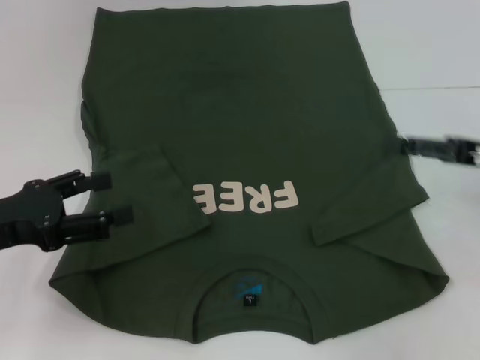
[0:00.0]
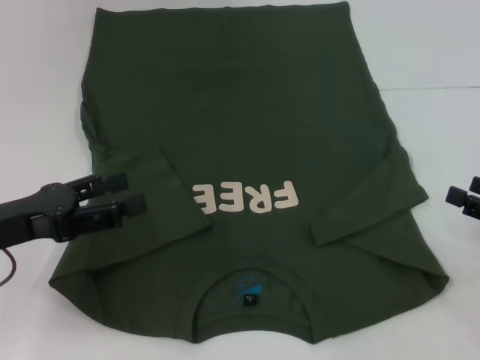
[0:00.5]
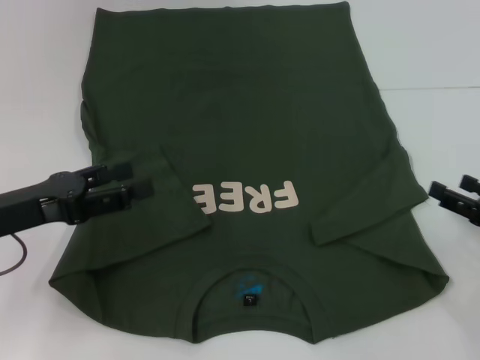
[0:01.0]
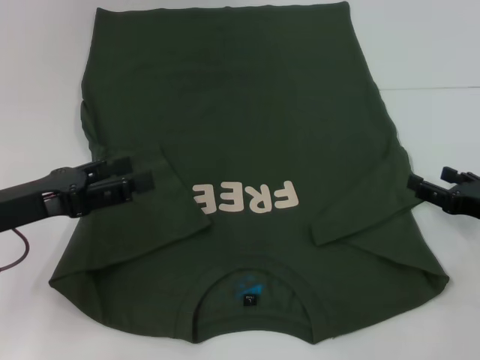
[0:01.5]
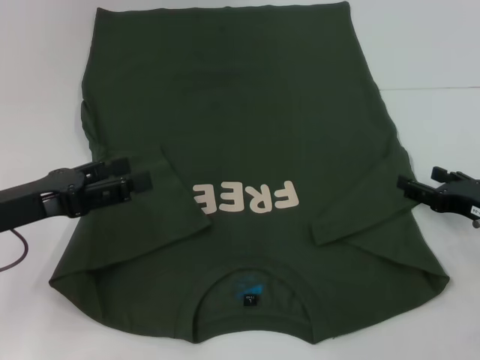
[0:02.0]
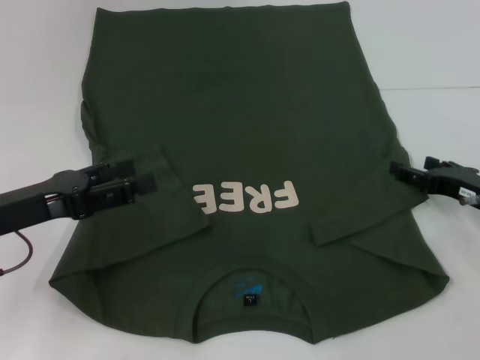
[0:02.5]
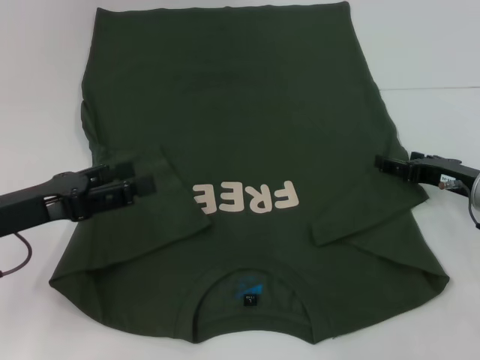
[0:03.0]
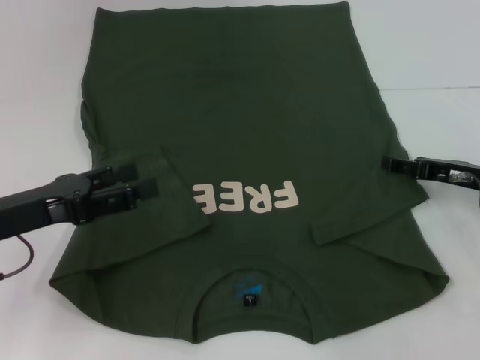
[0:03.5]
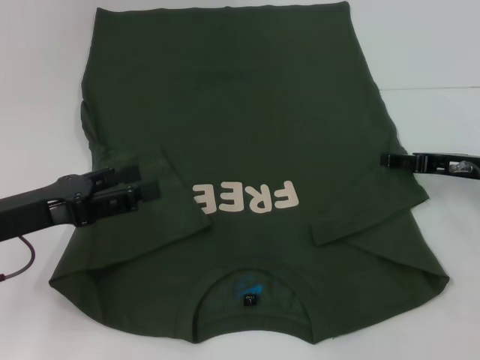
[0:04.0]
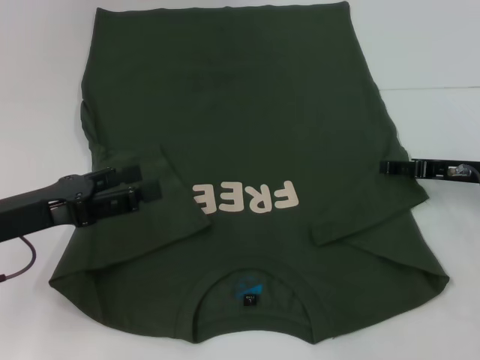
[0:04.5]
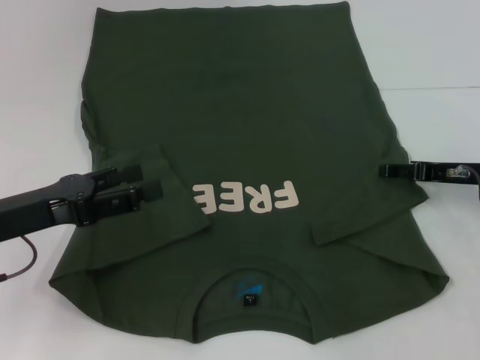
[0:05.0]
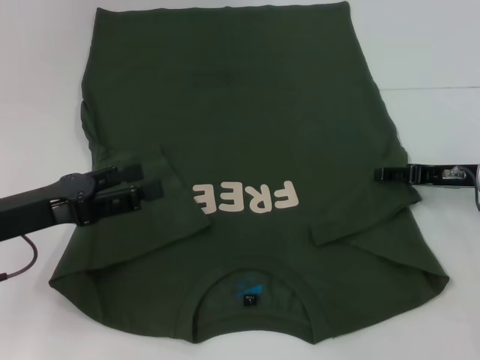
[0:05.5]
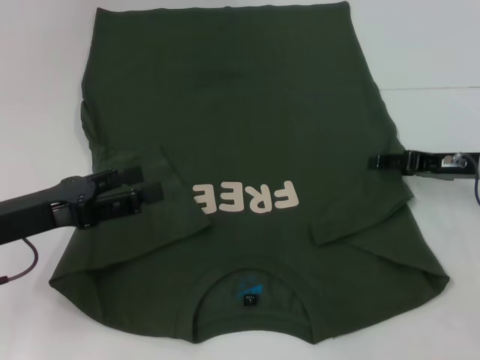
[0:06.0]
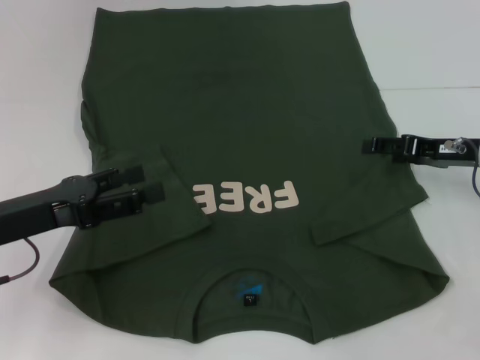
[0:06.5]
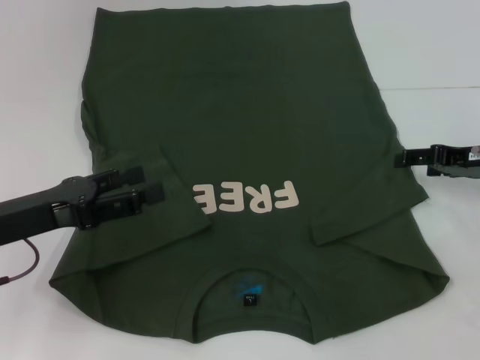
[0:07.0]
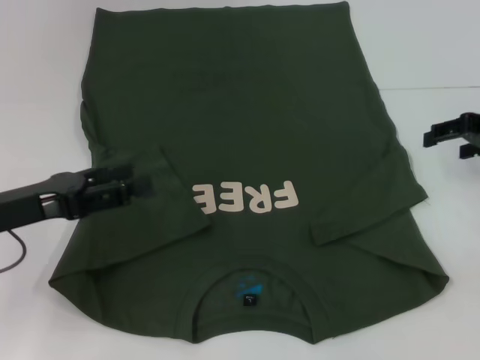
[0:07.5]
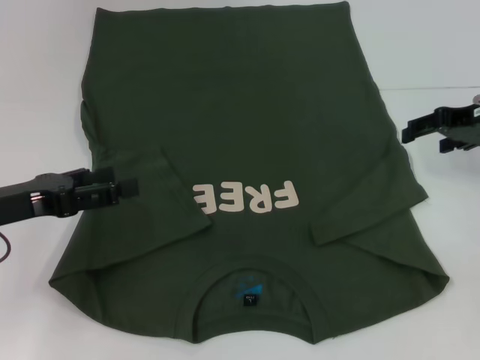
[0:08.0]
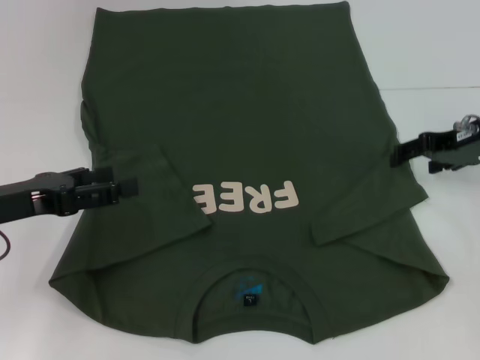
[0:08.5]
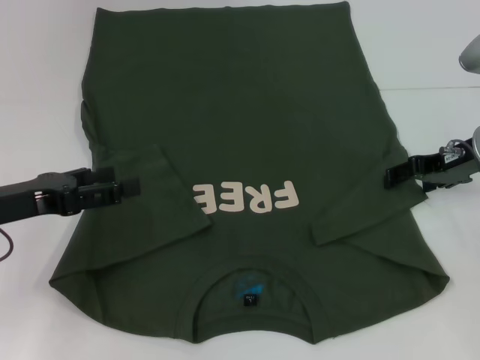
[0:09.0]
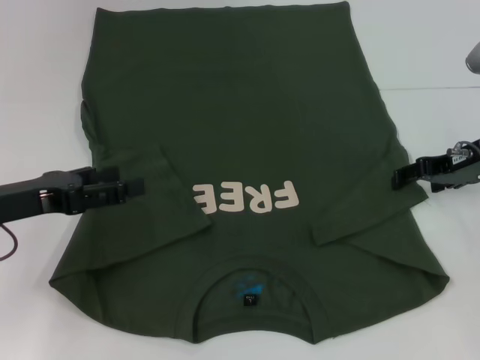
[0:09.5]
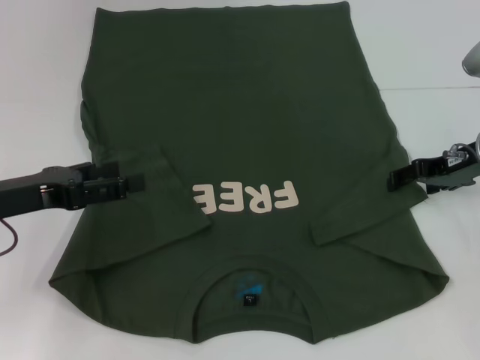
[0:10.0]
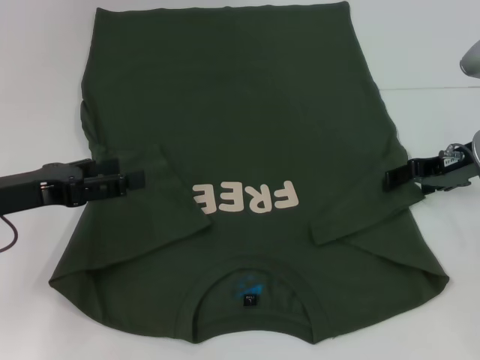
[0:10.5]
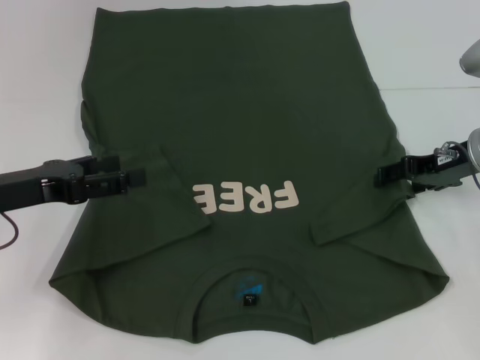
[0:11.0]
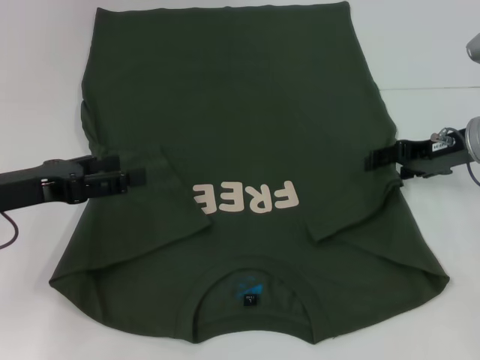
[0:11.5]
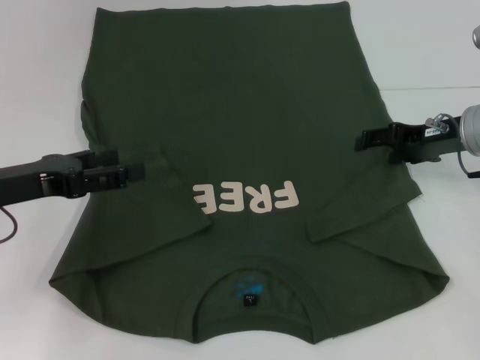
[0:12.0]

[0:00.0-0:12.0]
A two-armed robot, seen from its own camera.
0.0 to 2.0 s: The right gripper heads downward, covering roughly 10 cm.
2.0 to 4.0 s: The right gripper goes some 5 cm forward.
4.0 to 6.0 s: The grippers stay close to where they were, moving slightly.
6.0 to 8.0 s: The right gripper moves upward, approximately 10 cm.
8.0 to 10.0 s: The right gripper heads downward, covering roughly 5 cm.
10.0 to 12.0 s: The grippers make only small movements.

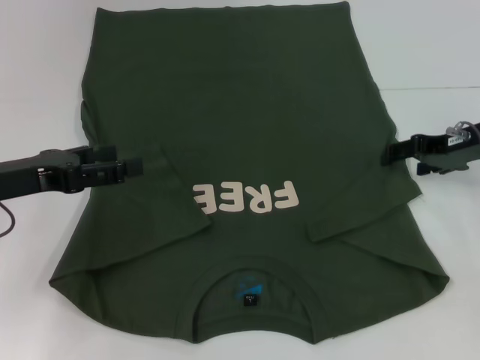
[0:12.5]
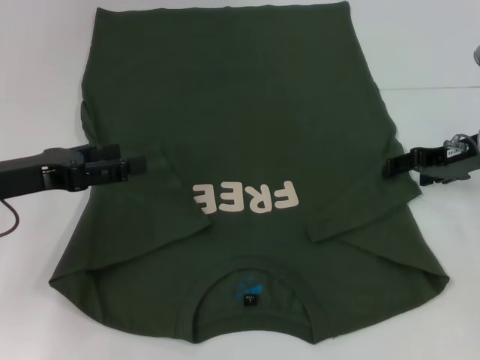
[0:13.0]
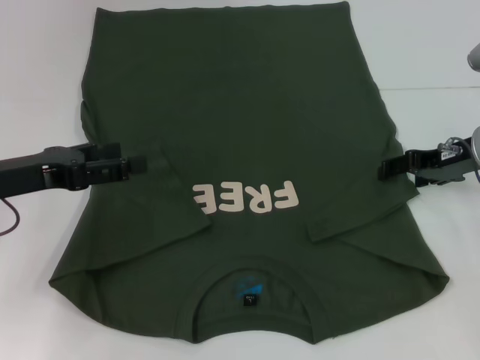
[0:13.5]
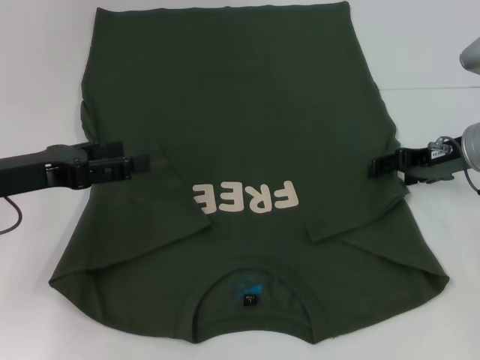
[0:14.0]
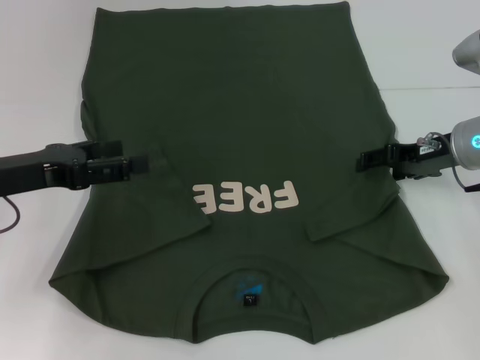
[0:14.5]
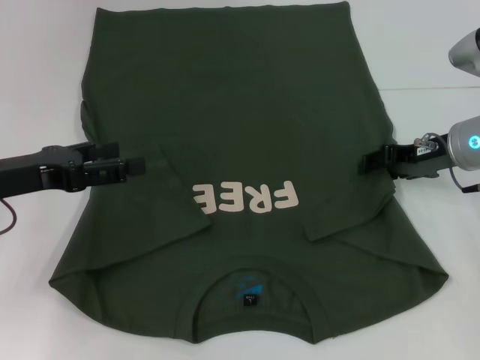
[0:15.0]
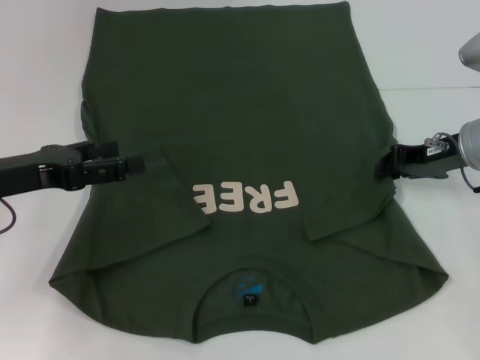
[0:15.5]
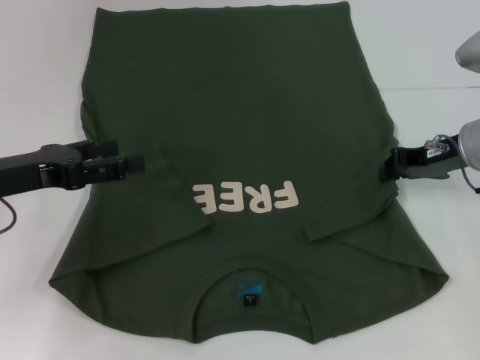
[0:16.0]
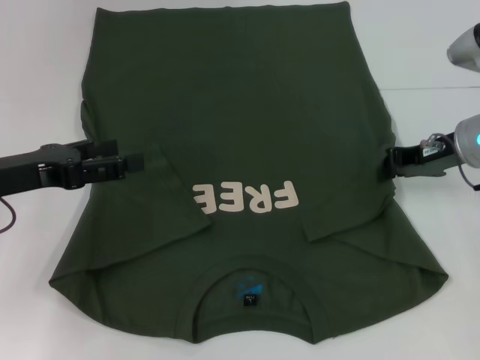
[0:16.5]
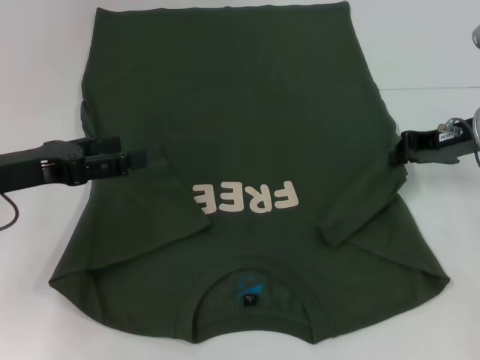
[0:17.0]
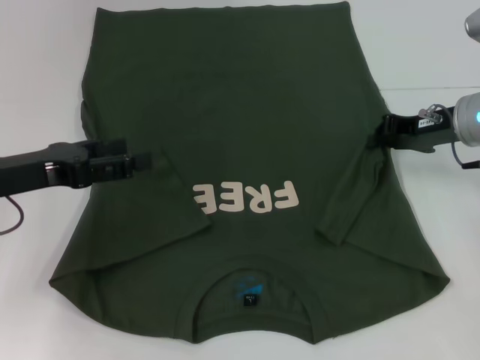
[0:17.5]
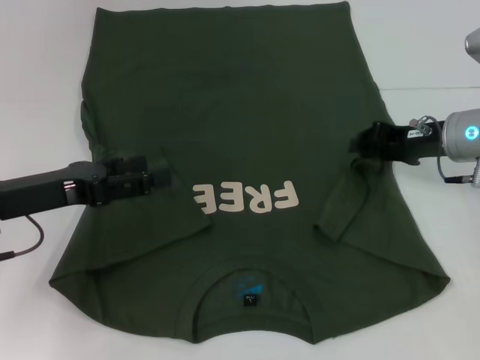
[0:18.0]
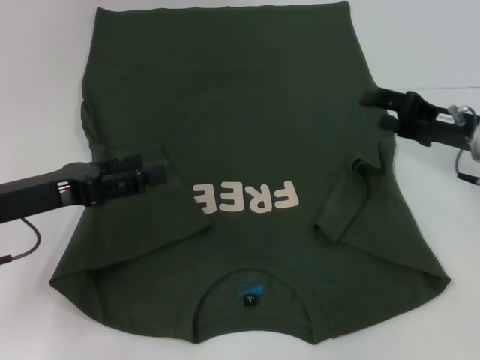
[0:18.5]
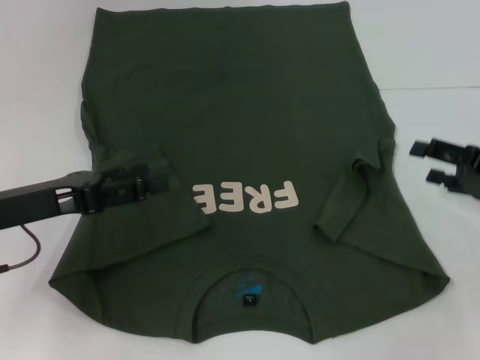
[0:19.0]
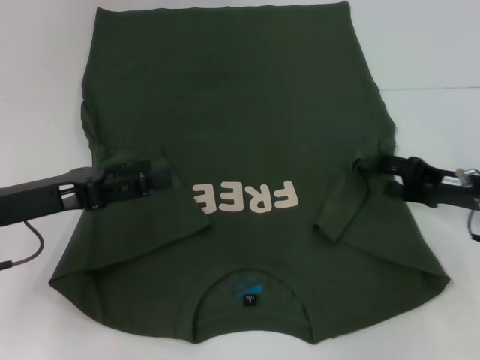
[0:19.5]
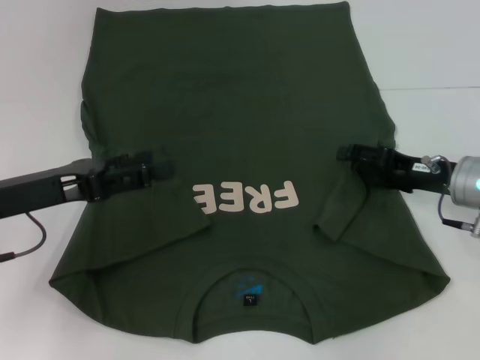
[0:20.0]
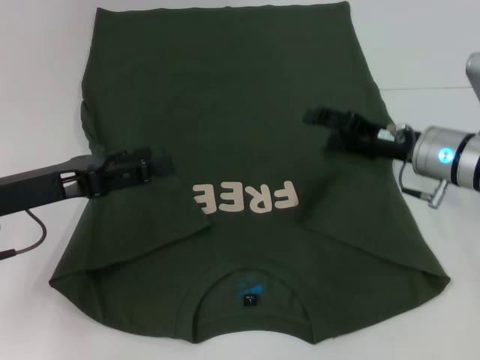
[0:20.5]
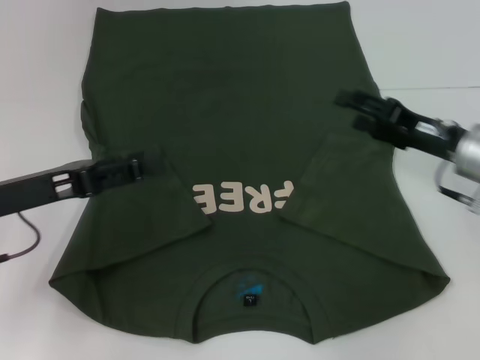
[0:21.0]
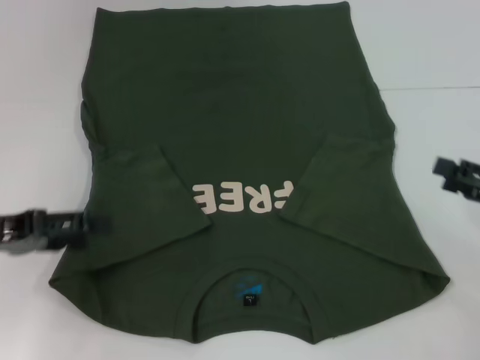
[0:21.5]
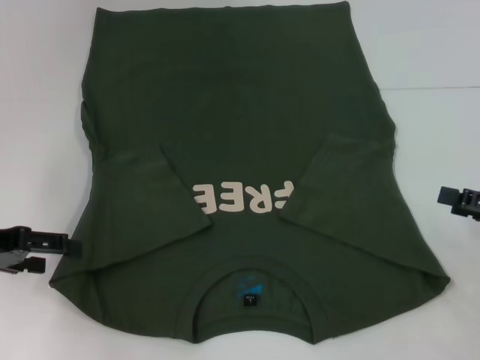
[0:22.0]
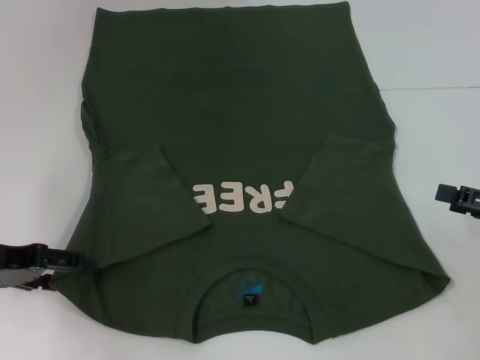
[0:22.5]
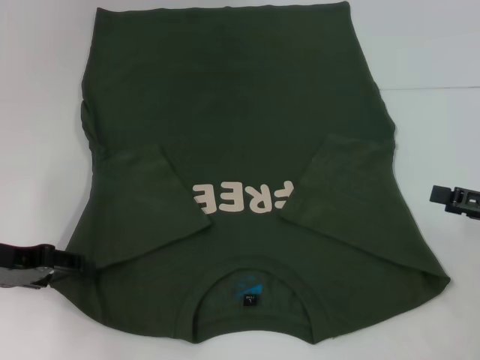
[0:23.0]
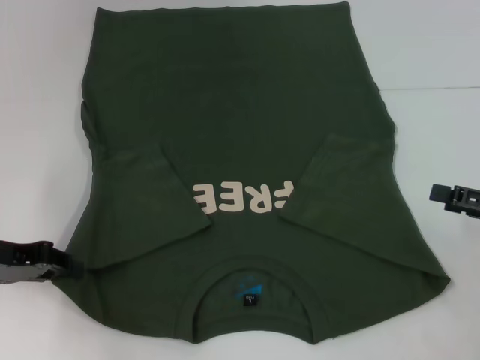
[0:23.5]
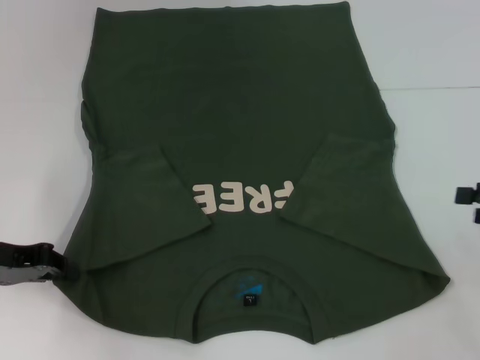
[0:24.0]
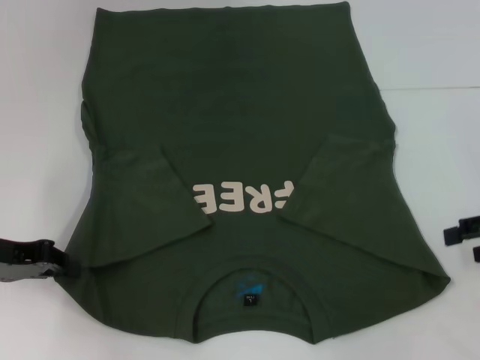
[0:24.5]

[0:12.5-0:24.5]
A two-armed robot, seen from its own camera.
Step, 12.5 to 20.5 s: Fold the bottom right sleeve with your right hand.
Step, 21.0 to 23.5 s: Grab the bottom left corner with your left hand.
12.5 to 14.5 s: The grippers stay close to where they were, moving slightly.
14.5 to 16.5 s: The right gripper closes up.
16.5 to 18.5 s: The right gripper opens up.
18.5 to 20.5 s: The right gripper shifts some 5 cm to the left, and opens.
20.5 to 22.5 s: The left gripper travels to the left by some 5 cm, while the right gripper is displaced to the right and backward by roughly 20 cm.
22.5 to 24.5 s: The left gripper closes its fingers; the right gripper ends up roughly 5 cm from where it was.

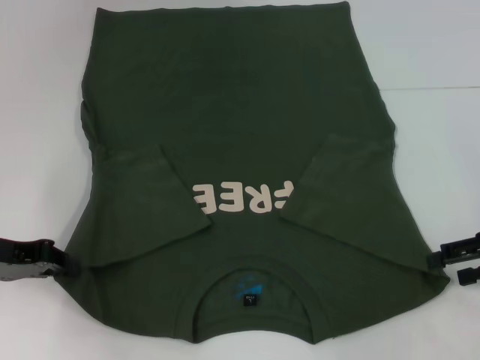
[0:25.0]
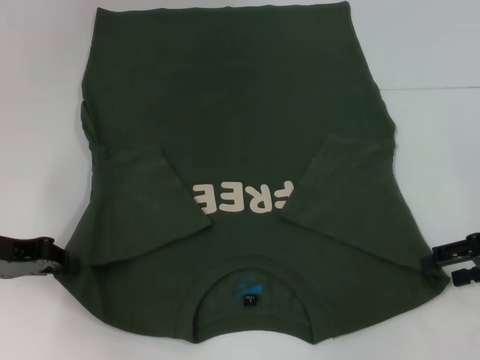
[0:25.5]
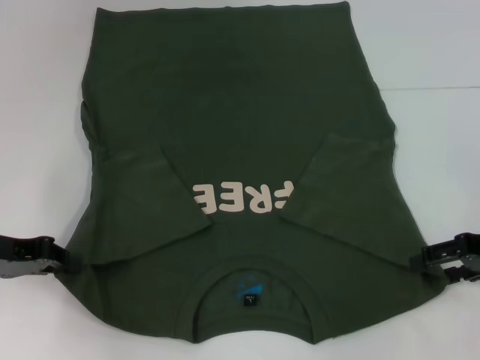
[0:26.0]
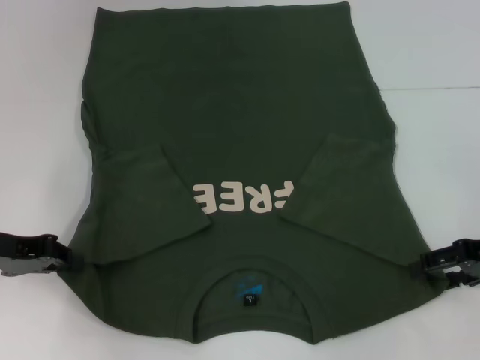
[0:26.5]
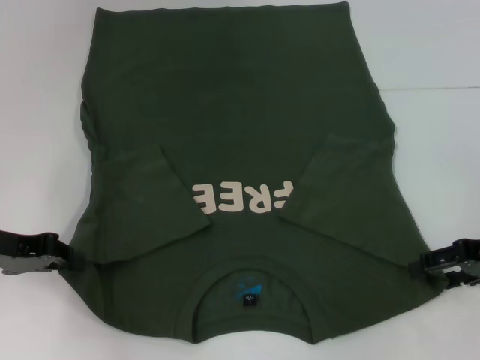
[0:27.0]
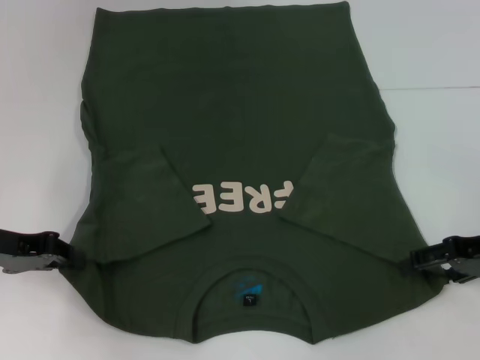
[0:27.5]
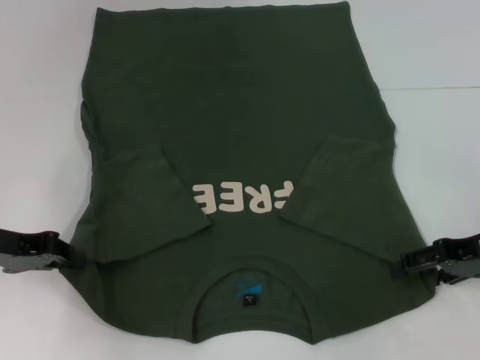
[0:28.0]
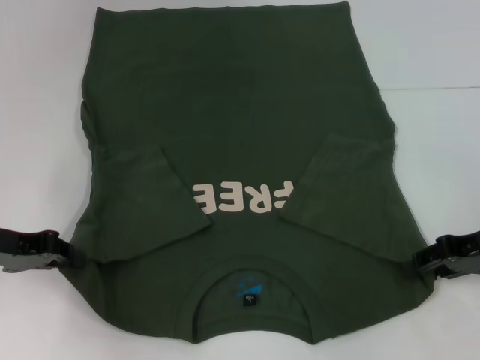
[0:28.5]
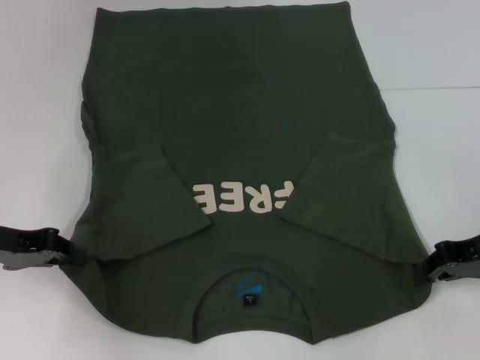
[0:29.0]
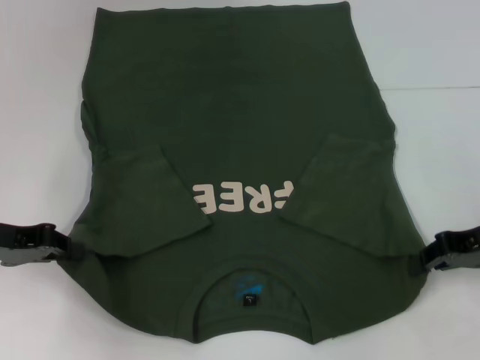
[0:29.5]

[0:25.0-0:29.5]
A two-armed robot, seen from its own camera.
Step, 25.0 to 28.5 s: Grab the bottom right corner with your right hand.
25.0 to 27.0 s: The grippers make only small movements.
27.0 to 29.5 s: The right gripper closes.
